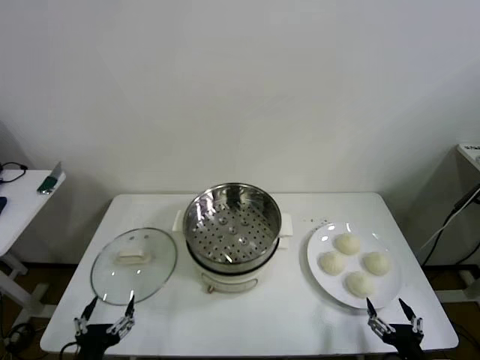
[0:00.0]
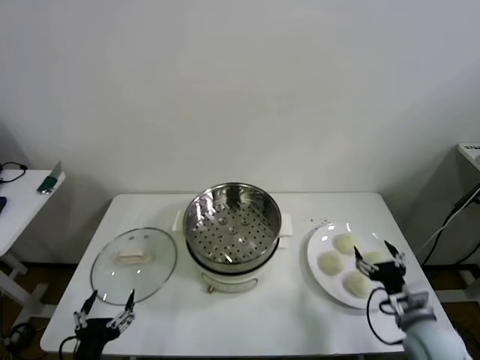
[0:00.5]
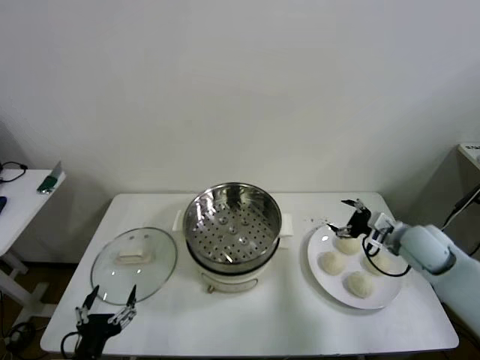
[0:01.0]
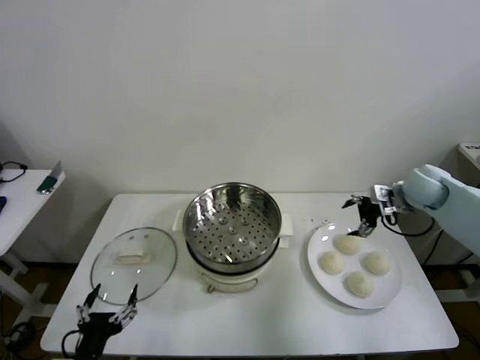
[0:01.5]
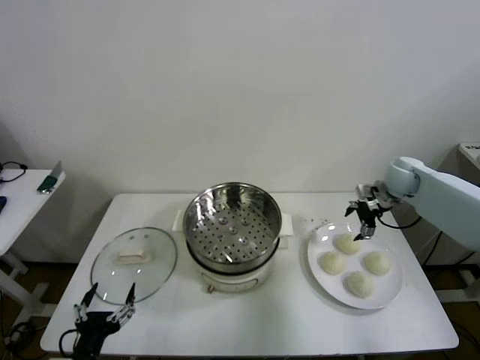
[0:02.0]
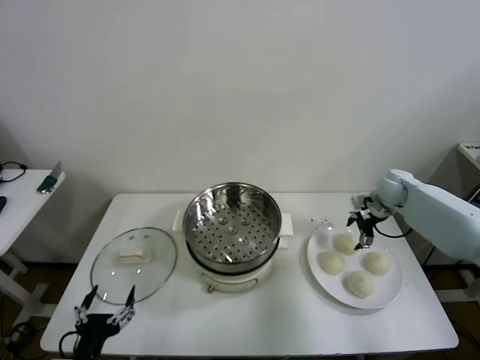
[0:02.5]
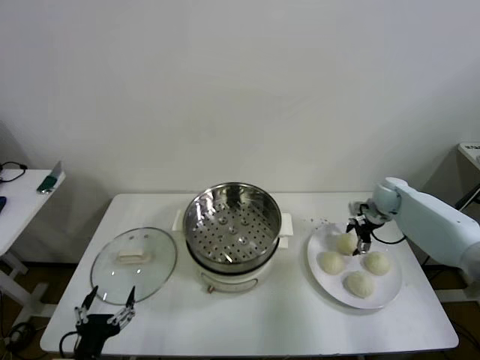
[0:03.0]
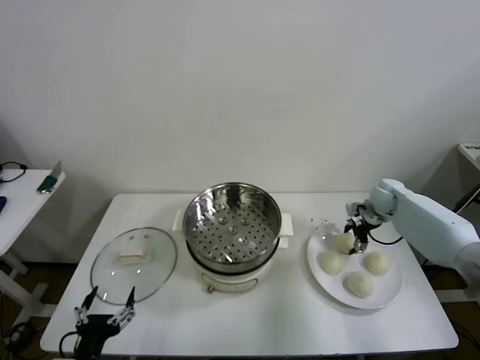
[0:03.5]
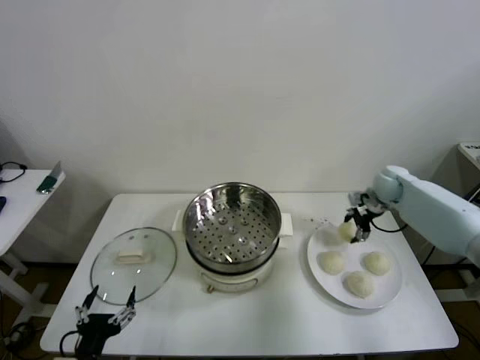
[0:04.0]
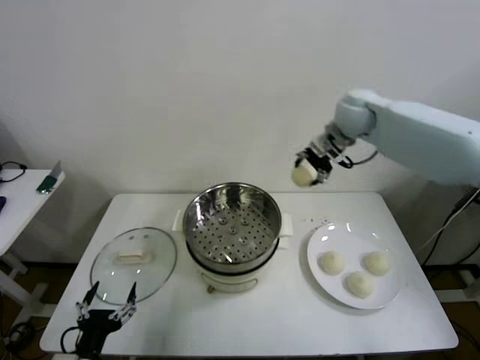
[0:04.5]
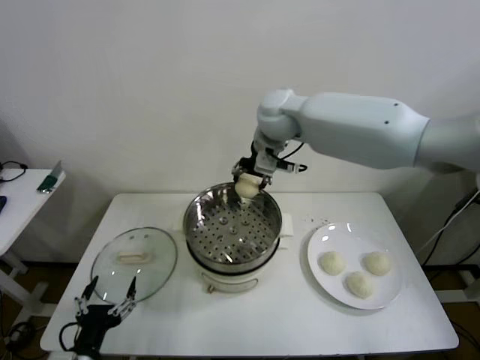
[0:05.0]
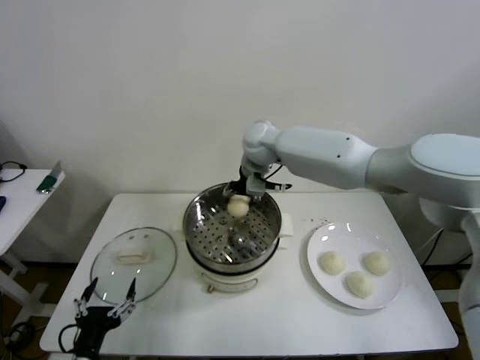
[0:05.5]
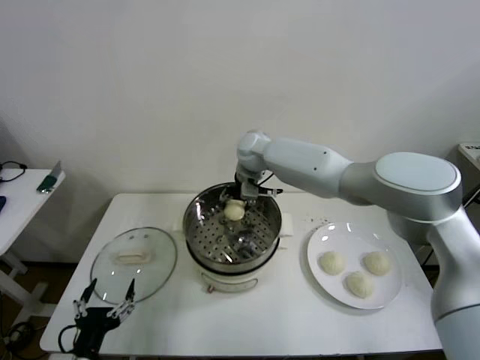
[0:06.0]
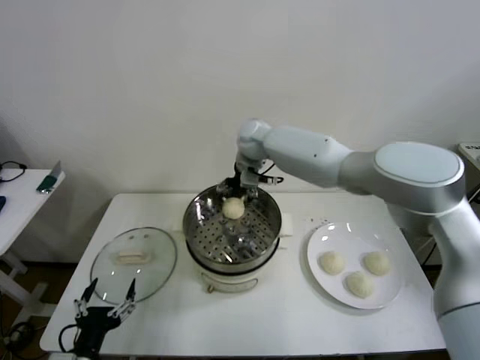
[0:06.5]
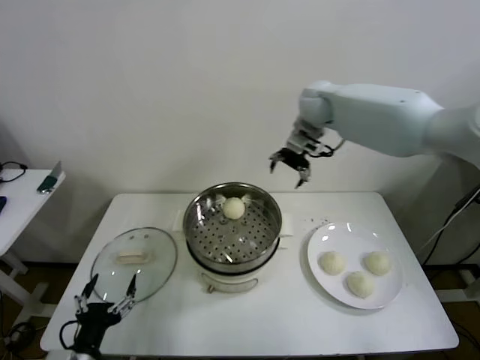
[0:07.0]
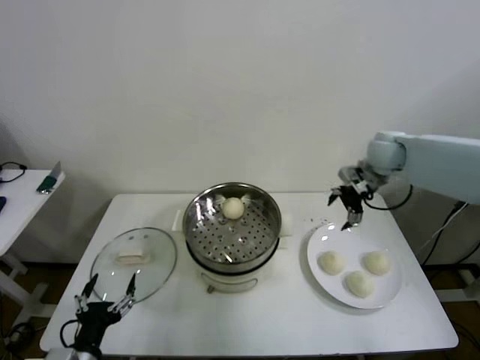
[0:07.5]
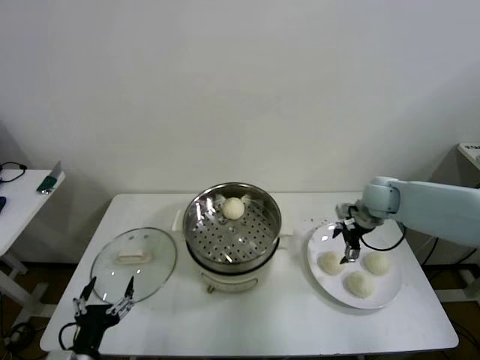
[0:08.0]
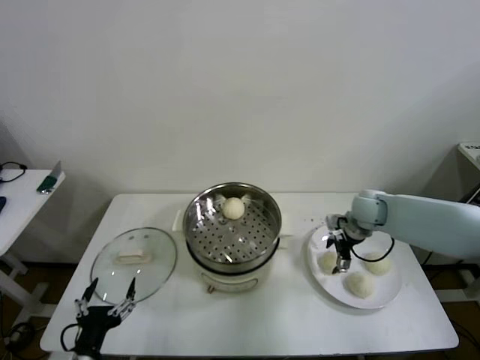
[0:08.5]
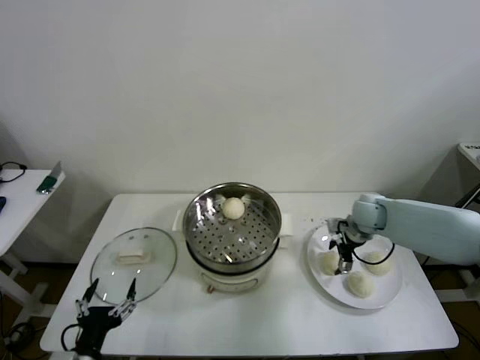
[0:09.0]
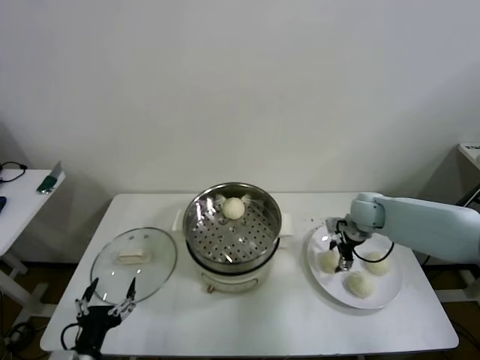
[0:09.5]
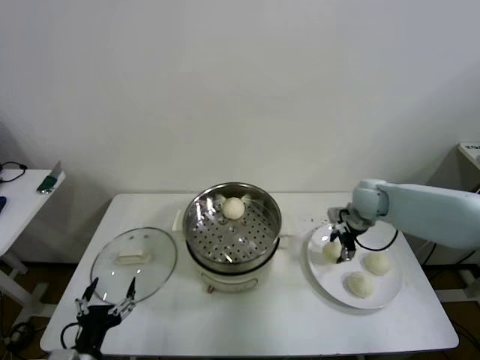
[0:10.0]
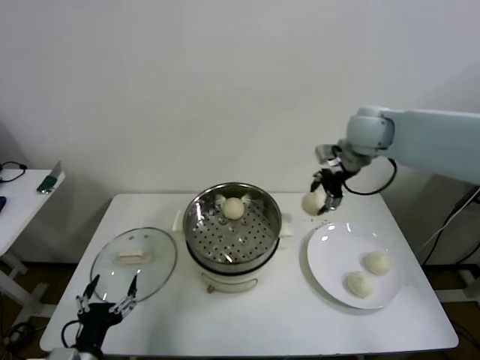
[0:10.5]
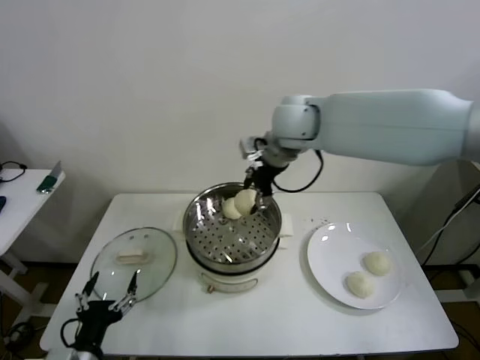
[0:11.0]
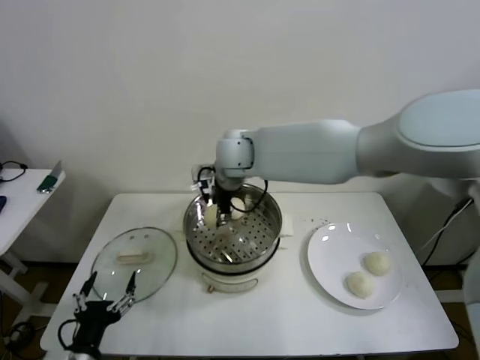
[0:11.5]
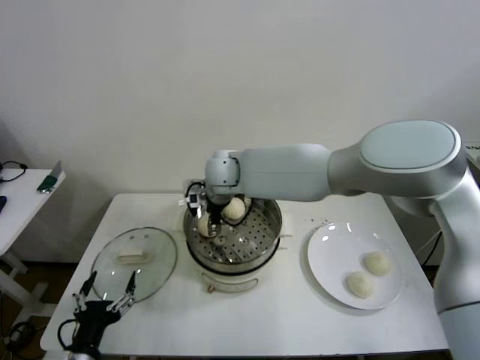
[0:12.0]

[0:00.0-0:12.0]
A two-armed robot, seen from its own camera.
Step, 0.0 to 3.5 s: Grasp the baozi in the plate with right gripper.
Step, 4.0 to 6.5 s: Place the baozi on the steamer with right gripper.
Step, 7.0 to 9.5 s: Grasp the baozi in the plate with right gripper.
2.0 to 4.0 s: The right gripper travels downward and back again, approximately 5 cm each way, and closes its fingers.
4.0 to 6.0 s: The right gripper heads to the left, covering some 35 cm.
6.0 to 8.0 s: The right gripper moves to the right, roughly 30 cm, and opens.
8.0 to 10.0 s: The right gripper closes its fingers.
10.0 to 12.0 s: The right gripper goes approximately 35 cm to the left.

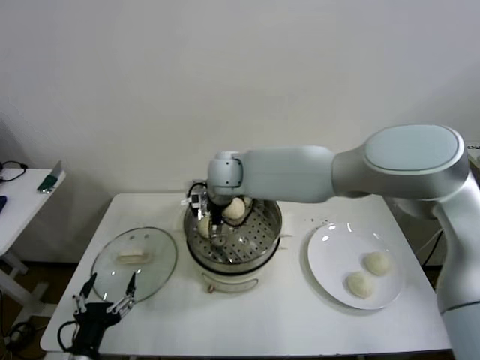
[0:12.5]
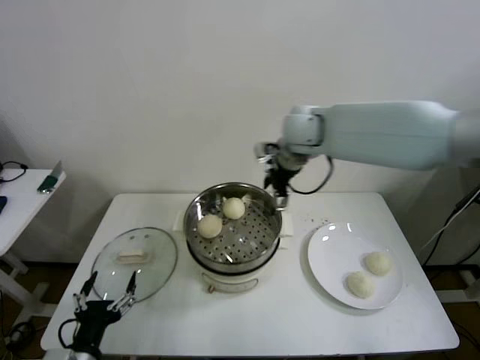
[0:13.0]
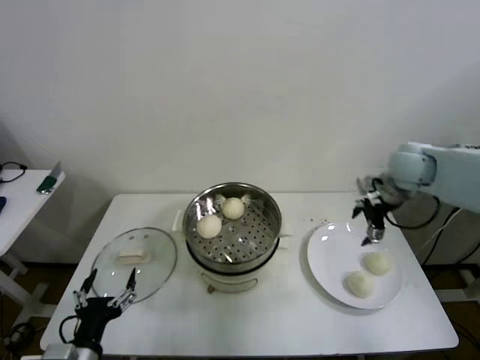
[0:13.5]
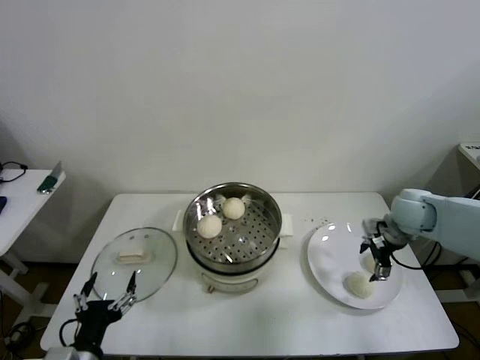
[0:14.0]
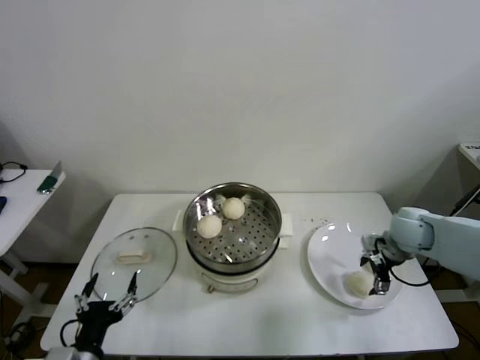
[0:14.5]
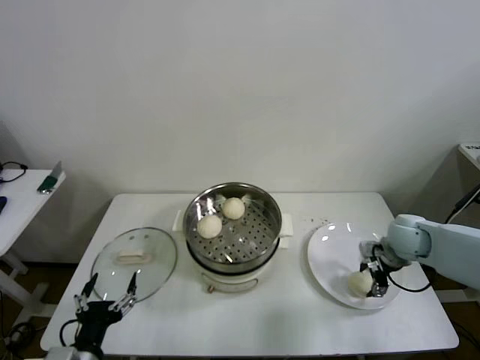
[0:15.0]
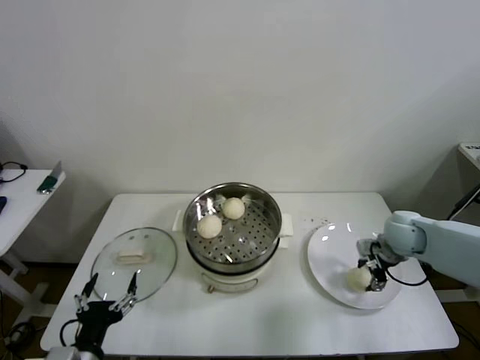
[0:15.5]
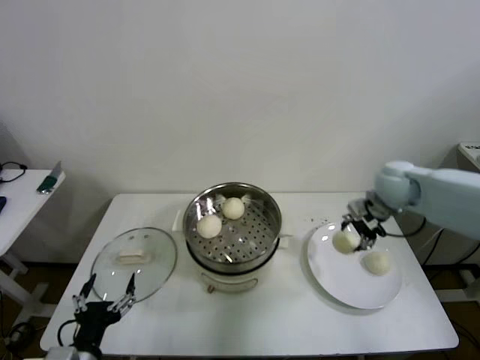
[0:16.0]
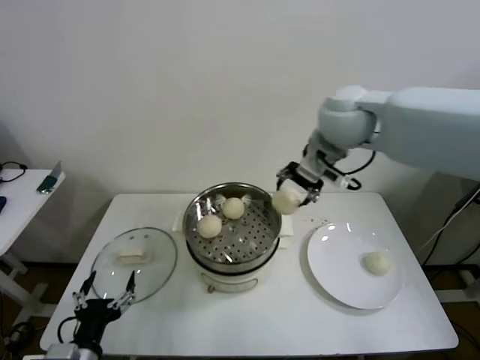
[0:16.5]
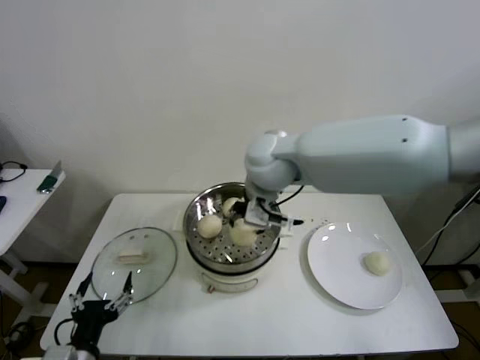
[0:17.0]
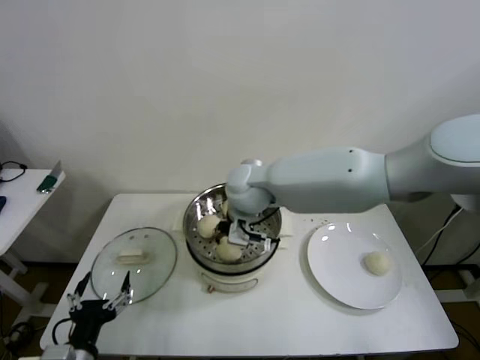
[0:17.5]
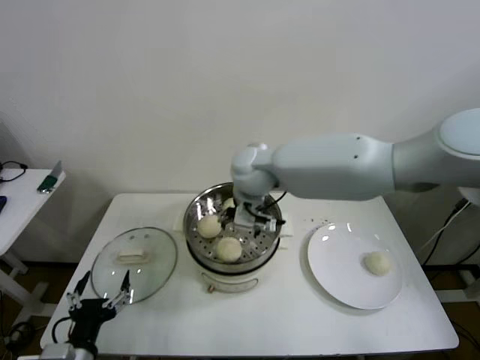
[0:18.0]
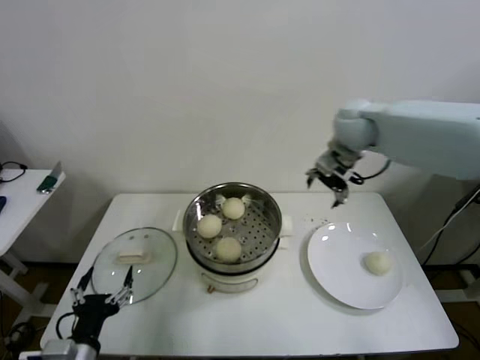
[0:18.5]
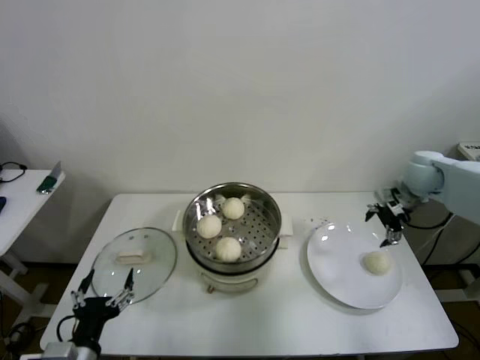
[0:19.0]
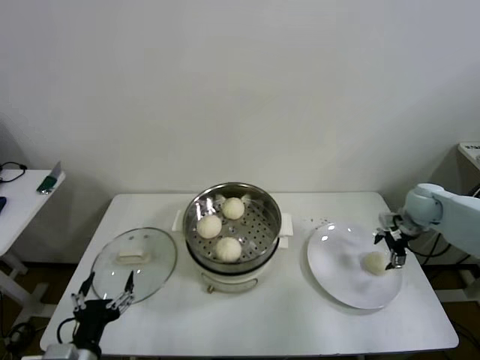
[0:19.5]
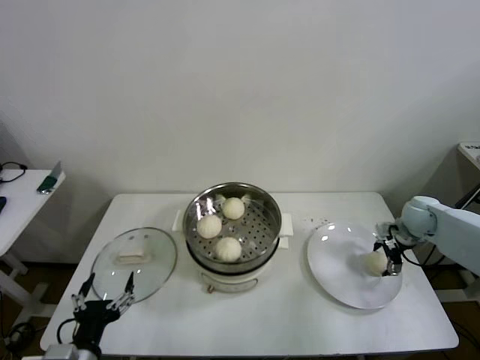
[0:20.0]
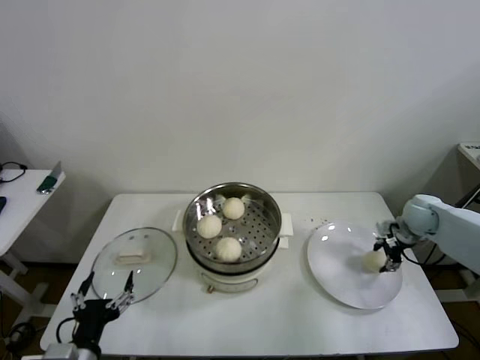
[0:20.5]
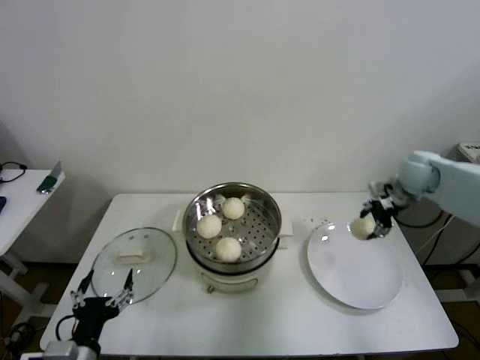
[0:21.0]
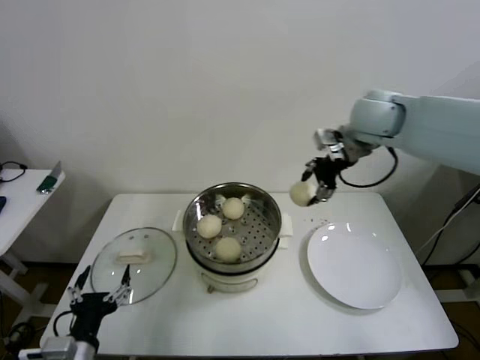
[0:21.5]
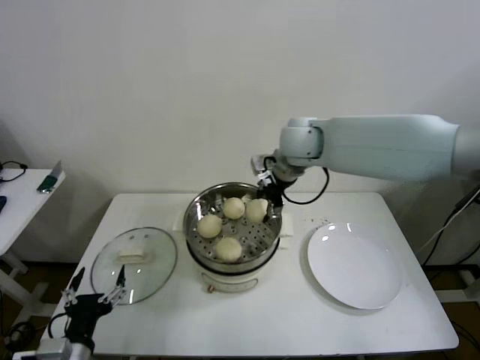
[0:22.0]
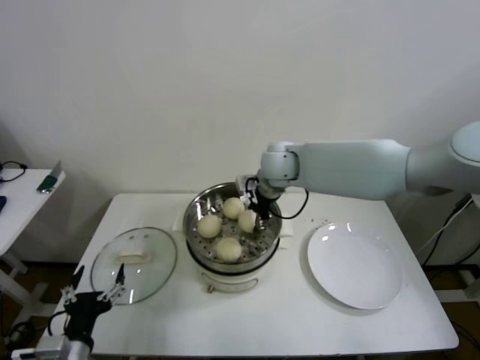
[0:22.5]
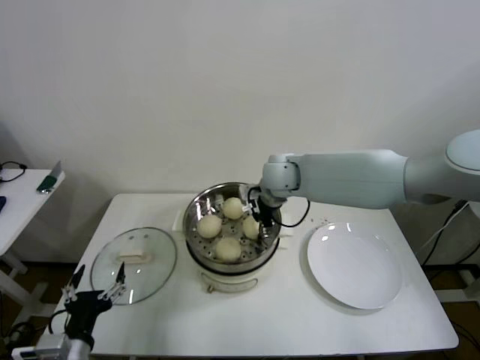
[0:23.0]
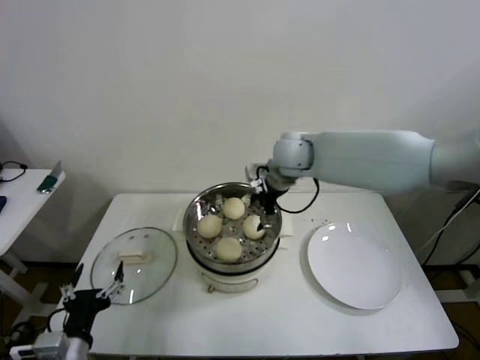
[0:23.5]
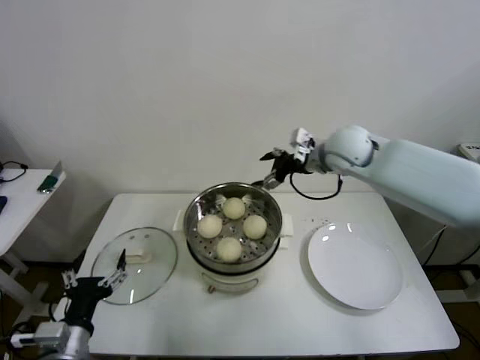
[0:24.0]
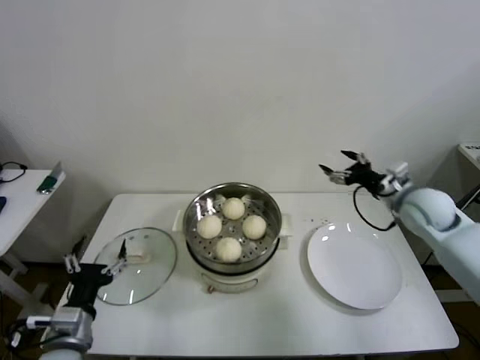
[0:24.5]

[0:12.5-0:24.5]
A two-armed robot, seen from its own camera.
Step, 13.0 to 15.0 s: Grasp the baozi in the plate with right gripper.
Step, 15.5 to 17.5 s: Place the baozi on the steamer with right gripper.
Step, 18.0 to 20.5 s: Grasp the baozi in the plate with right gripper.
Step, 21.0 to 23.0 s: Place the baozi on the steamer with right gripper.
12.5 to 14.5 s: The right gripper moves to the right, approximately 40 cm.
14.5 to 16.5 s: The right gripper shifts approximately 35 cm upward and to the left, and closes its fingers.
16.5 to 18.5 s: The right gripper shifts approximately 10 cm forward and downward, travels to the left and back again, some 15 cm each way, and opens.
18.5 to 20.5 s: The right gripper is displaced downward and to the right by about 30 cm, and closes.
20.5 to 22.5 s: The right gripper heads to the left, covering about 35 cm.
22.5 to 24.5 s: The right gripper travels to the right by about 30 cm, and opens.

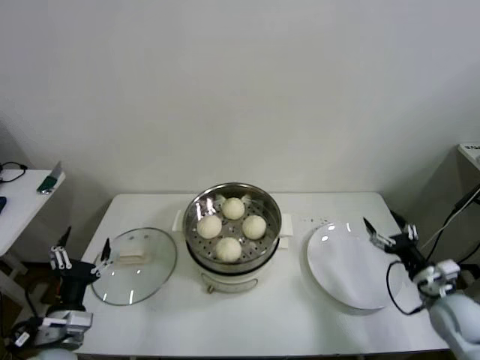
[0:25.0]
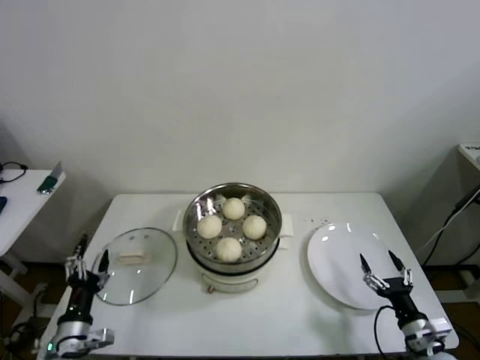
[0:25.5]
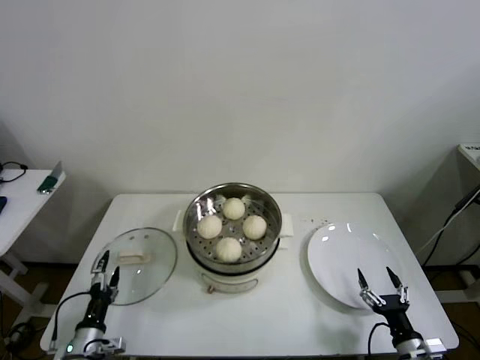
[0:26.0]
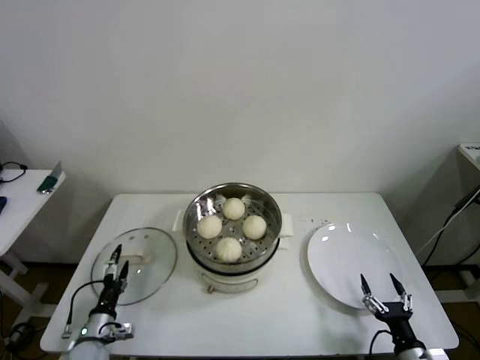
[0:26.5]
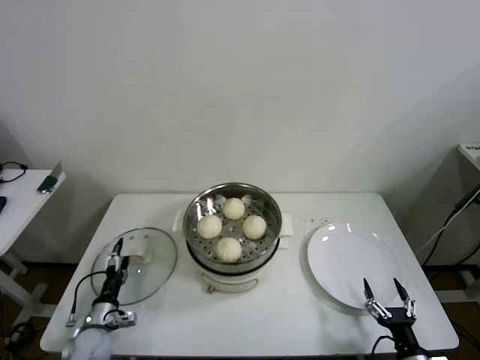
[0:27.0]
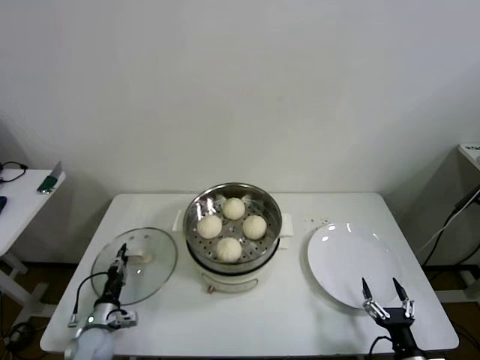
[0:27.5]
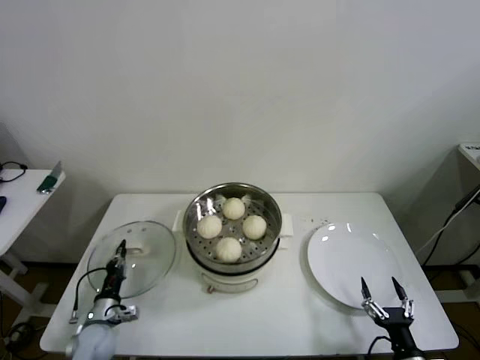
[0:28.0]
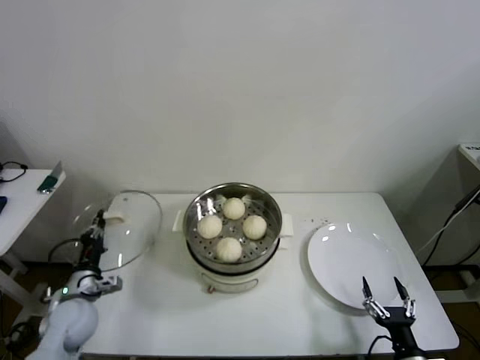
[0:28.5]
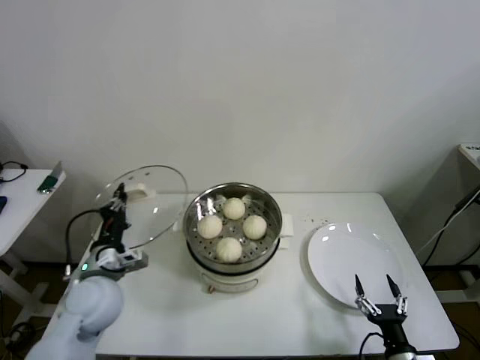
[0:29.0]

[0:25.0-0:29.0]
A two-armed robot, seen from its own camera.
Step, 25.0 to 27.5 s: Grasp the pot lid with left gripper.
25.0 to 27.0 s: The right gripper shifts about 20 cm backward, downward and to the left; the left gripper goes roughly 20 cm downward and forward.
27.0 to 29.0 s: The left gripper shifts some 20 cm upward, and closes up.
